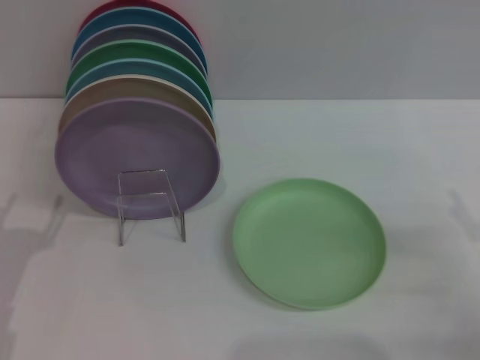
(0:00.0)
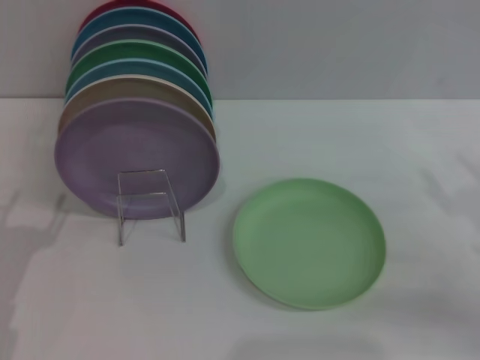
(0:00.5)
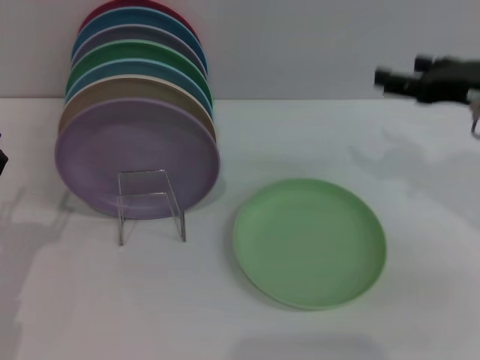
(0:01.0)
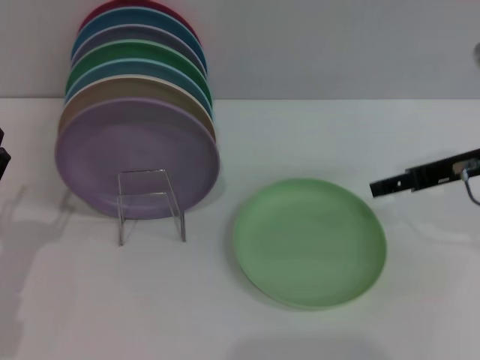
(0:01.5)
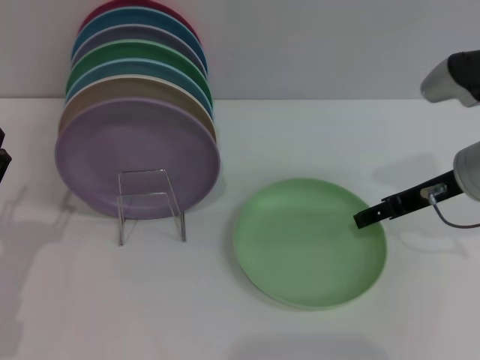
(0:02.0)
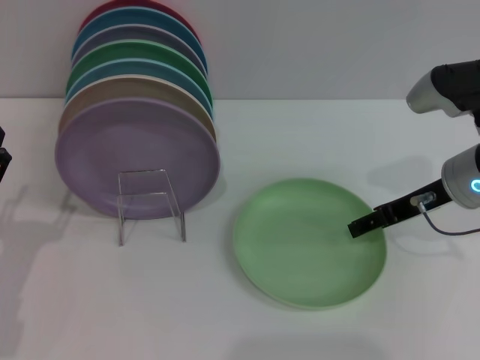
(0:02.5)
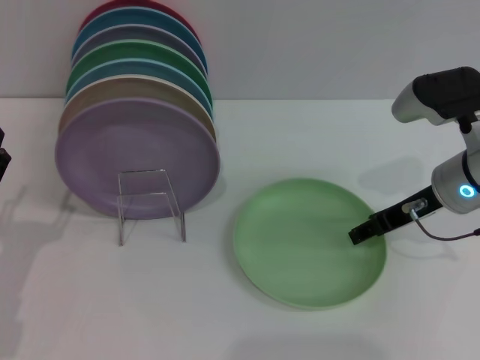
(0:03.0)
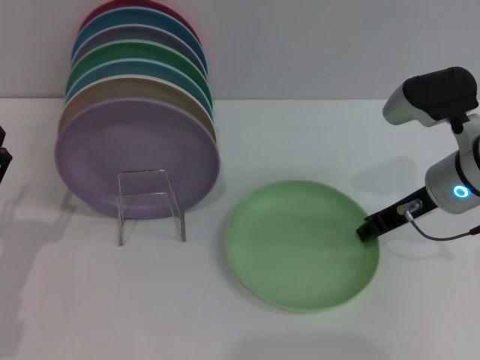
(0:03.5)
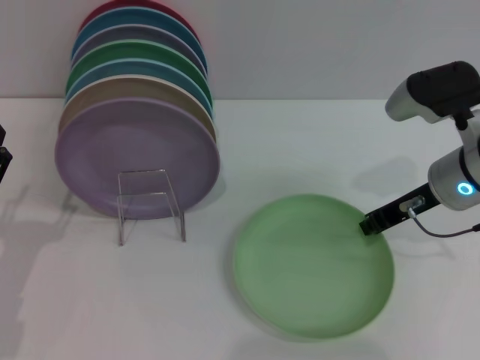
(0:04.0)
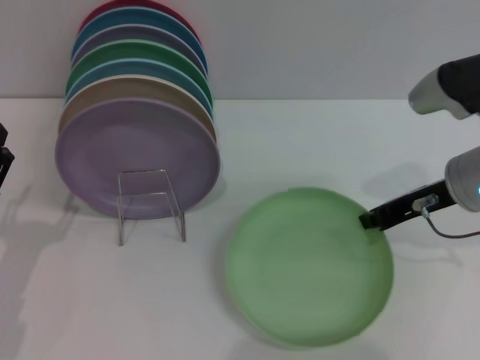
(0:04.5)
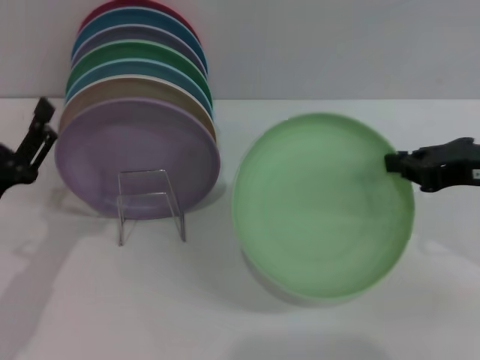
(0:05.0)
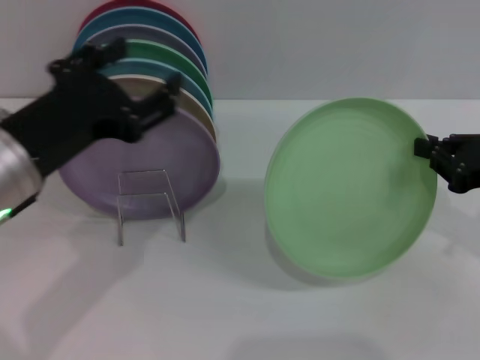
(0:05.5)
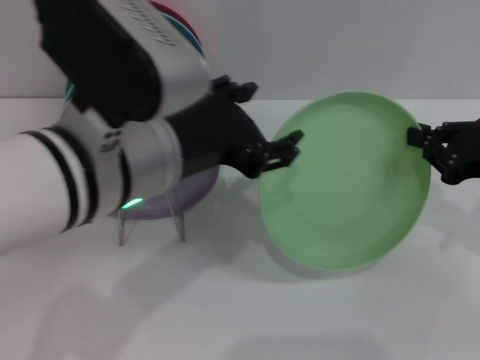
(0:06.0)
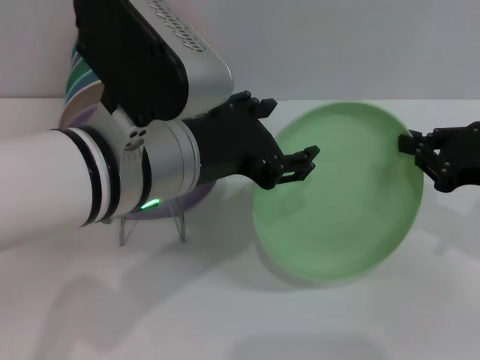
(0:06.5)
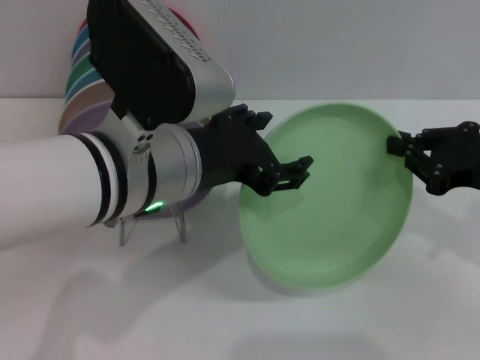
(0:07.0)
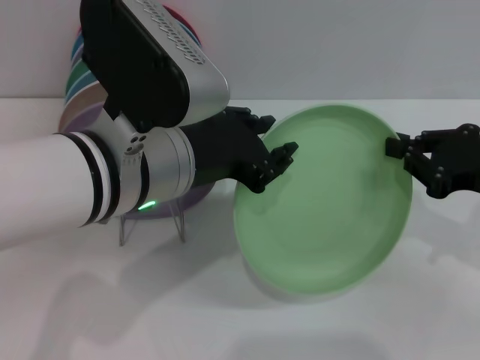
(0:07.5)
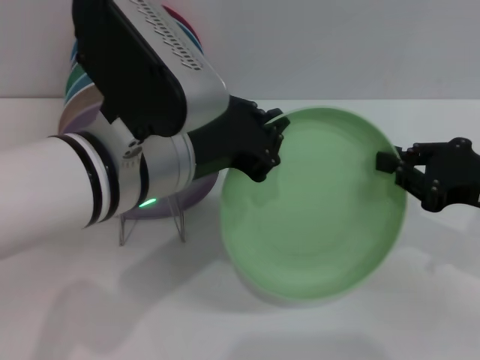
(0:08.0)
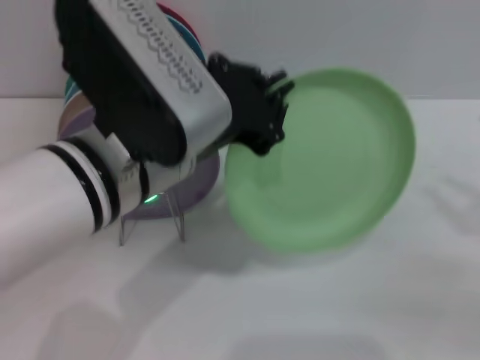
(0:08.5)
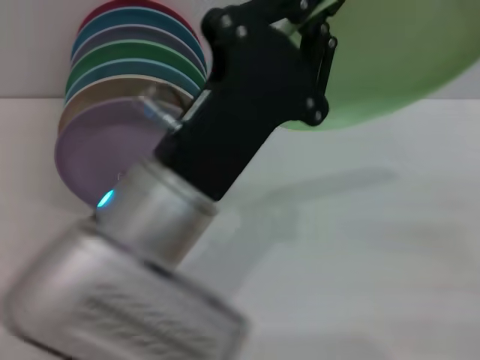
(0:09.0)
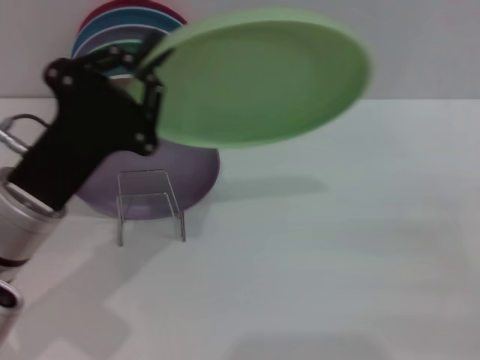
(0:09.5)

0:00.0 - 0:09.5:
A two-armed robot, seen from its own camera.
Task of the whole recording: Grip the plate with one hand, pass it to the other, then set it on the shelf.
Step, 0:00.0 - 0:05.0: Pick up the plate with the right gripper.
Step, 0:05.5 - 0:08.0: Pass the plate from the right gripper to the left gripper.
0:00.0 - 0:02.0: The right gripper is displaced forward, to the left and upward by approximately 20 cm.
0:02.0 - 0:04.0: The right gripper closes up.
0:04.0 - 0:05.5: The right gripper travels to the right and backward by roughly 10 cm, while the left gripper shifts about 20 cm upward and to the right.
0:05.5 - 0:07.5: The left gripper goes approximately 10 cm to the right.
0:07.5 - 0:09.5: The left gripper moves to the left and downward, about 15 cm, and closes. Meanwhile the right gripper is displaced to the right and backward by some 10 cm, and opens up.

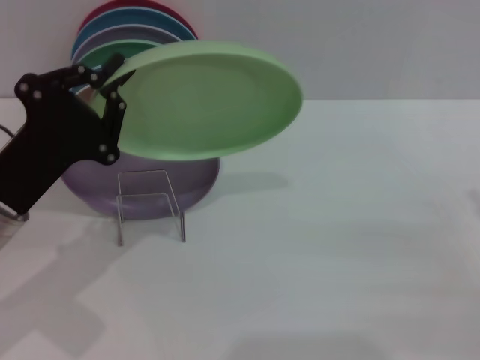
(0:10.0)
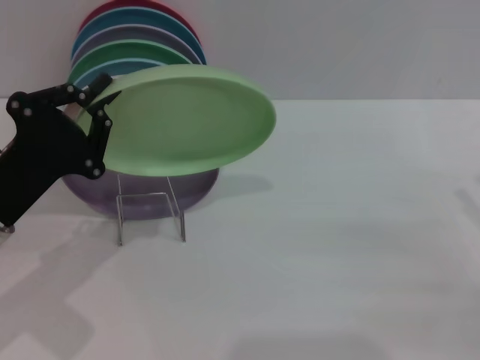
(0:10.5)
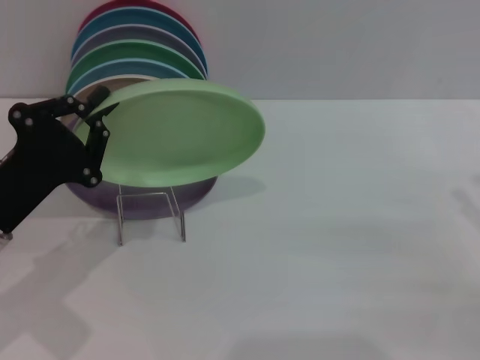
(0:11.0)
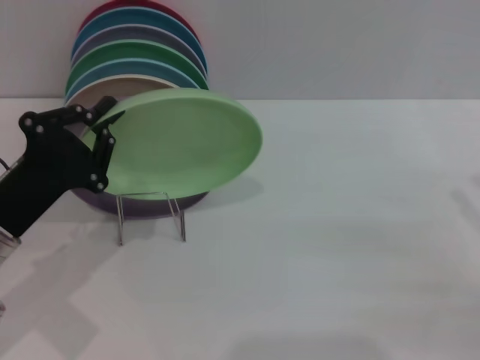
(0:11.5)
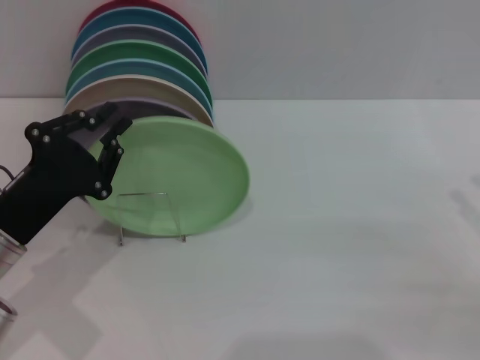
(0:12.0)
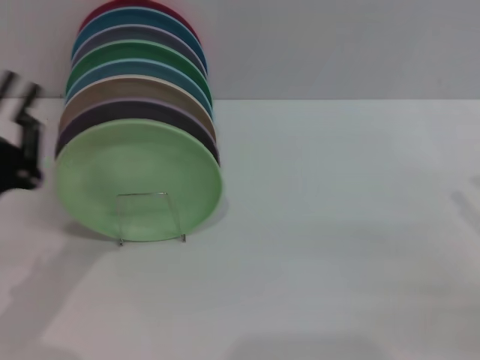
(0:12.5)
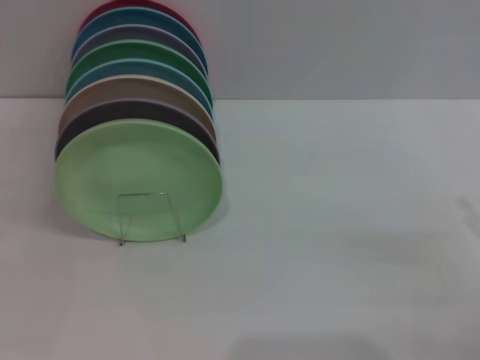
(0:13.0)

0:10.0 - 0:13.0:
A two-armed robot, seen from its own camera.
Task of the whole recording: Grip the plate with one hand, pass it to the other, then set it on the shelf.
Step, 0:10.0 - 0:12.0: Place the plate on the shelf with the left gripper.
0:10.0 - 0:11.5: The grippers make only small movements.
0:11.5 - 0:13.0: The left gripper goes roughly 10 cm to the left and backward.

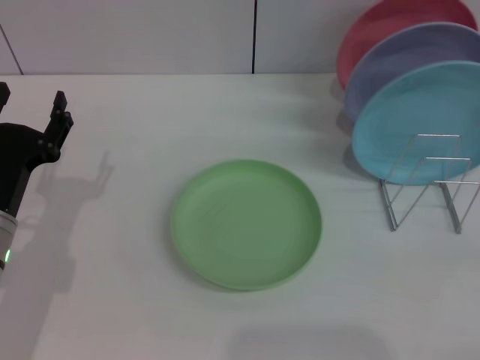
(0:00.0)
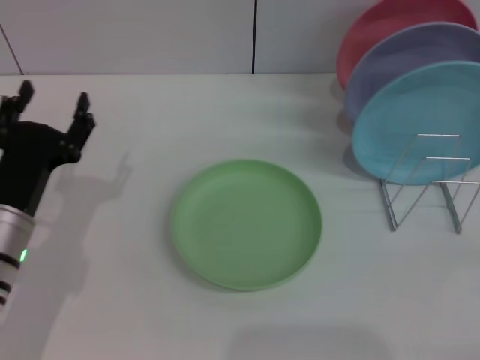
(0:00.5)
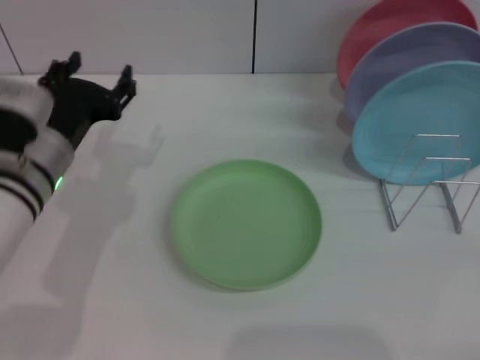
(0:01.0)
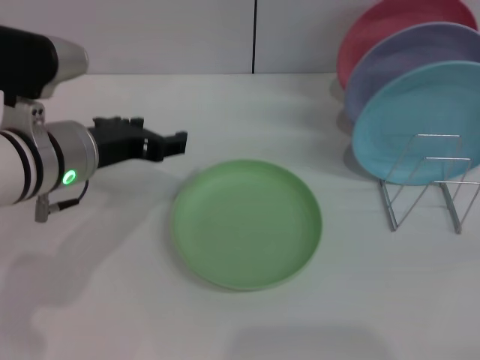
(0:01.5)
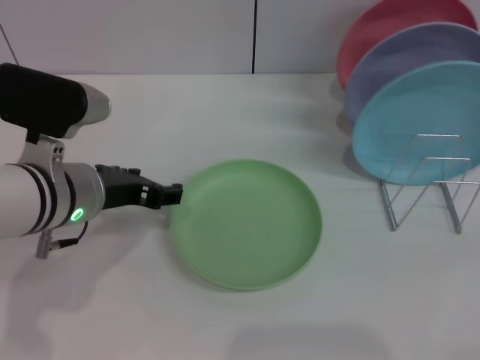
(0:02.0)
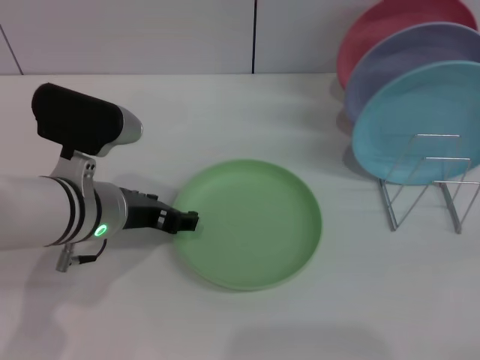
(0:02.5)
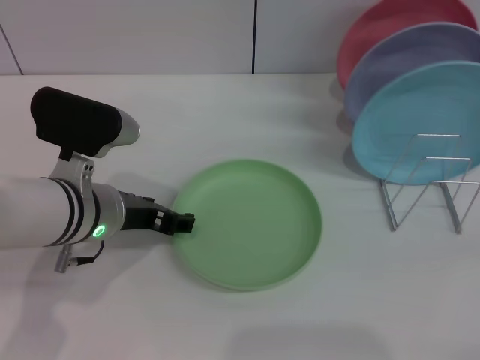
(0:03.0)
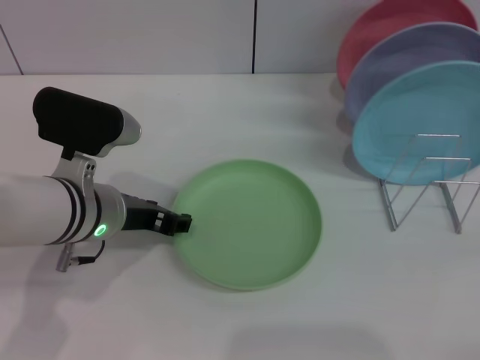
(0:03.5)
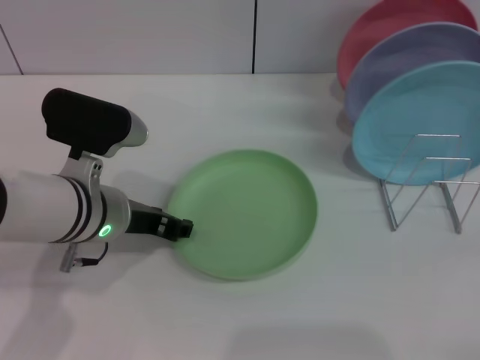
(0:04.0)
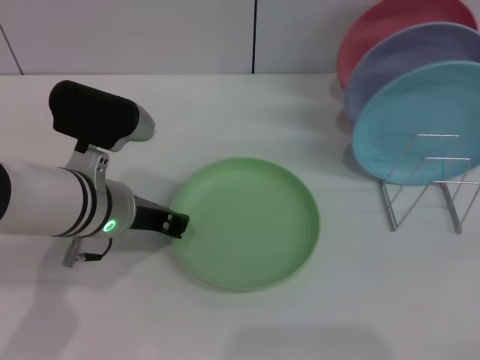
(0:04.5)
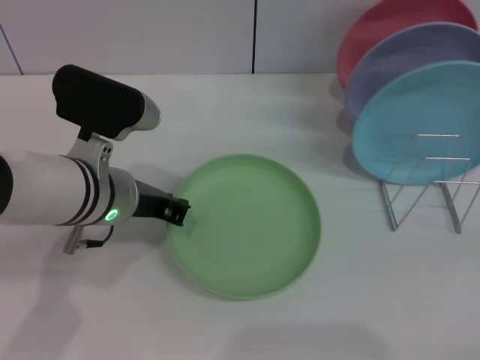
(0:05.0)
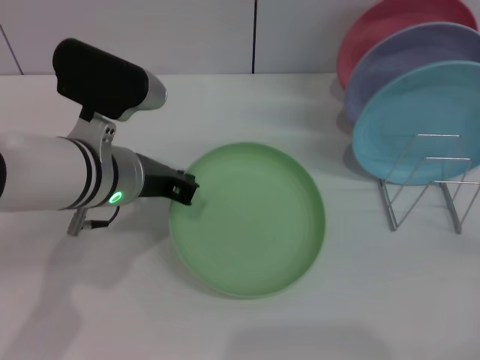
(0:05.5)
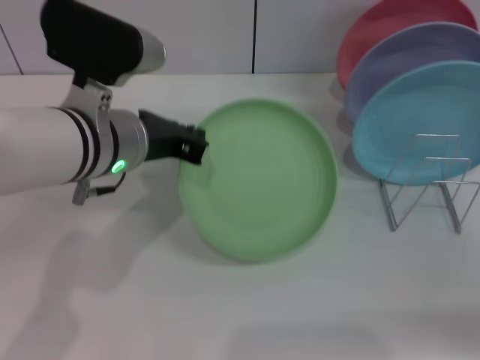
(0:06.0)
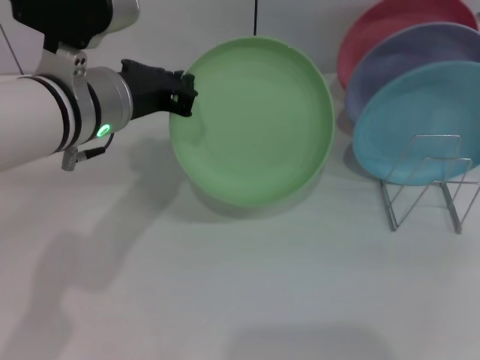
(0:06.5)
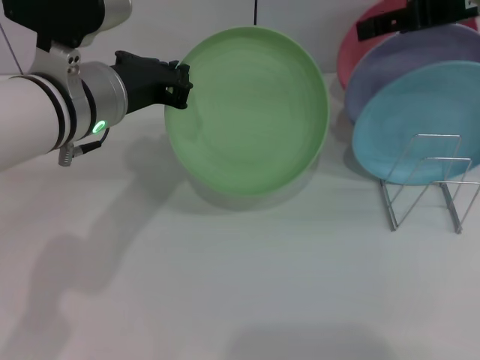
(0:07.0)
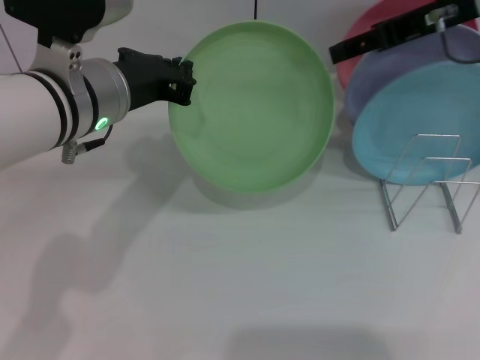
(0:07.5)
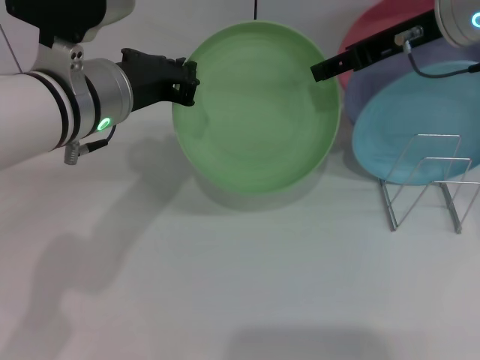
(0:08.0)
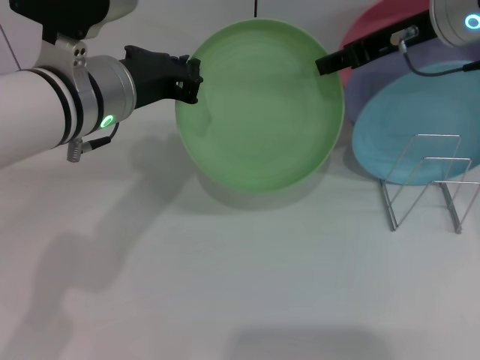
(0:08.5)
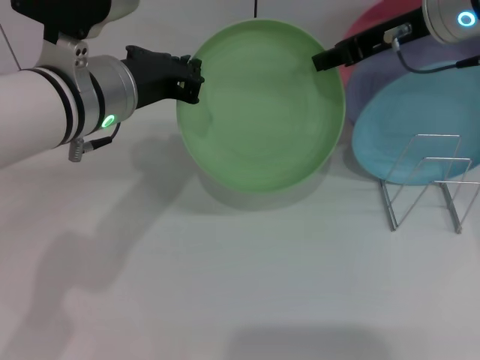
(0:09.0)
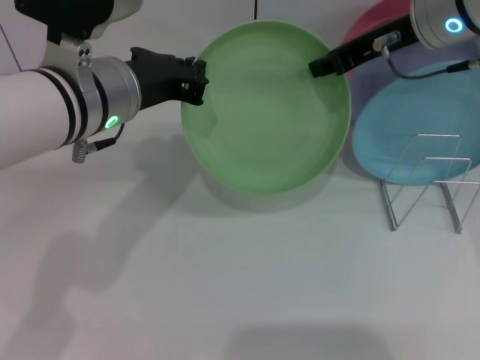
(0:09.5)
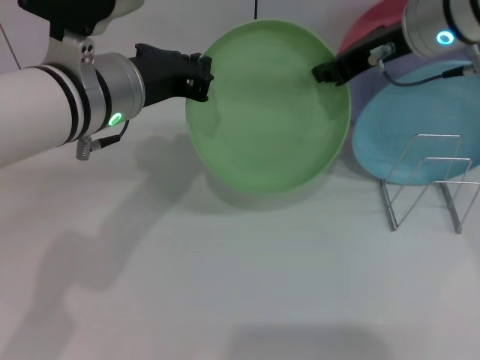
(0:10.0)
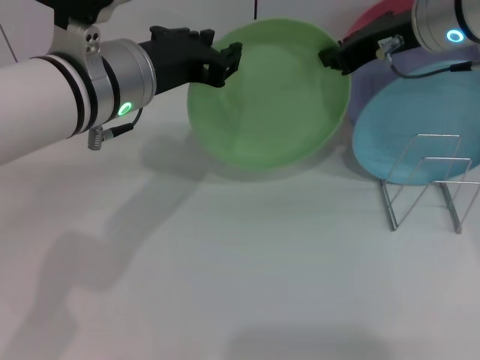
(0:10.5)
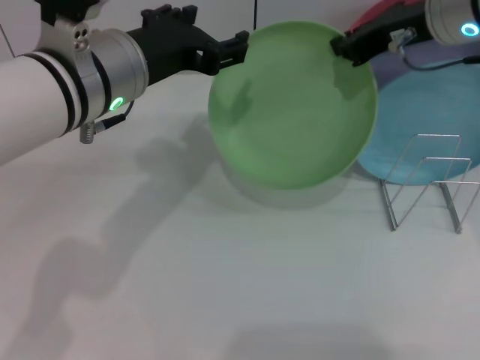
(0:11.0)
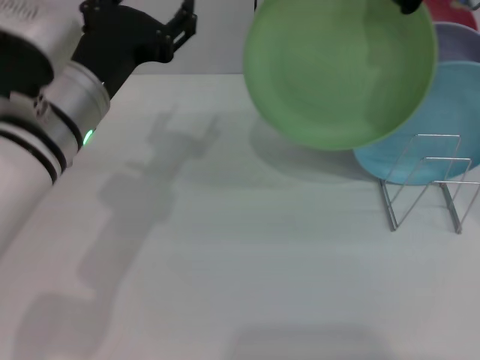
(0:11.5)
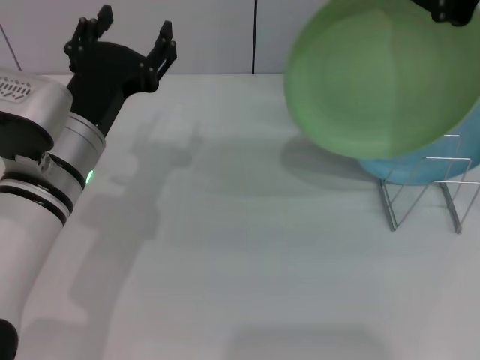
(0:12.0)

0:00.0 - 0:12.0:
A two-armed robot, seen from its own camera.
Task of the whole recording: Grip the plate with one hand, pass it to the other, then set it on the shelf.
Step, 0:00.0 - 0:06.0: Pick up the plate with the left gripper.
Step, 0:06.5 - 0:11.0: Pass the plate from the left gripper to the right gripper.
0:00.0 - 0:02.0: The left gripper heads upward and to the right, covering approximately 10 cm.
0:02.0 - 0:04.0: There are only small adjustments of the grippers.
0:04.0 - 0:06.0: The left gripper shifts about 5 cm upward, and closes up. The right gripper heads upward and forward, covering approximately 10 cm.
0:06.0 - 0:08.0: The right gripper is displaced forward, to the left and upward by approximately 25 cm.
0:08.0 - 0:10.0: The right gripper closes up.
0:10.0 - 0:12.0: The left gripper moves downward, about 5 cm, and opens up. The right gripper goes approximately 15 cm upward and backward.
